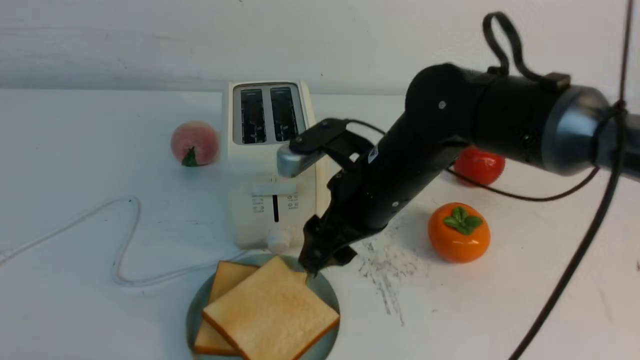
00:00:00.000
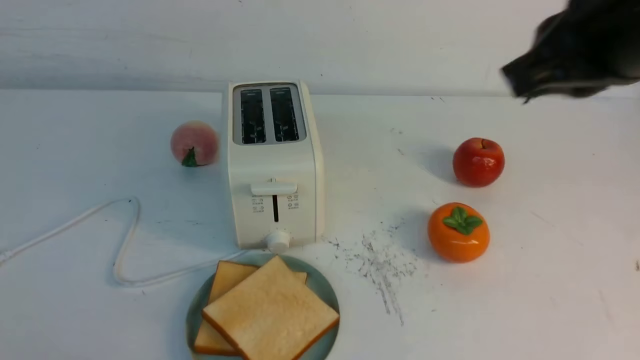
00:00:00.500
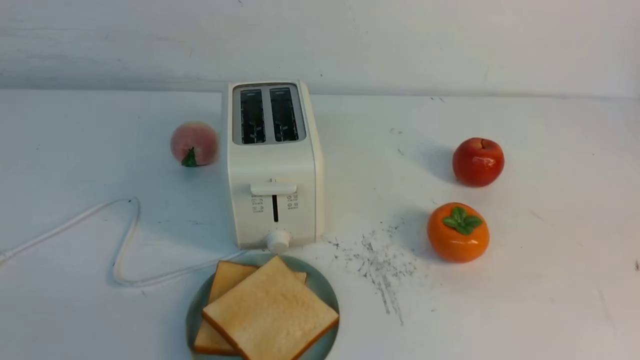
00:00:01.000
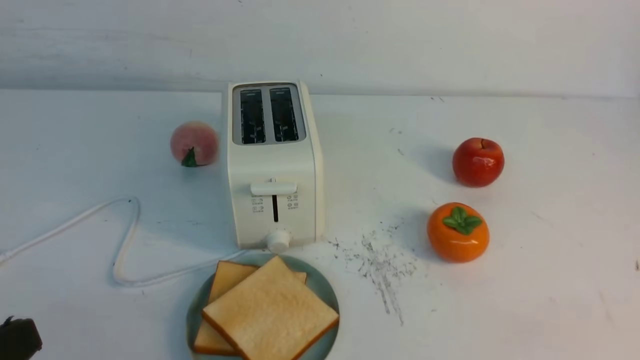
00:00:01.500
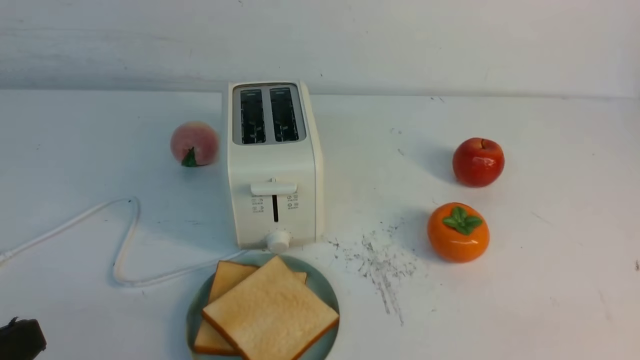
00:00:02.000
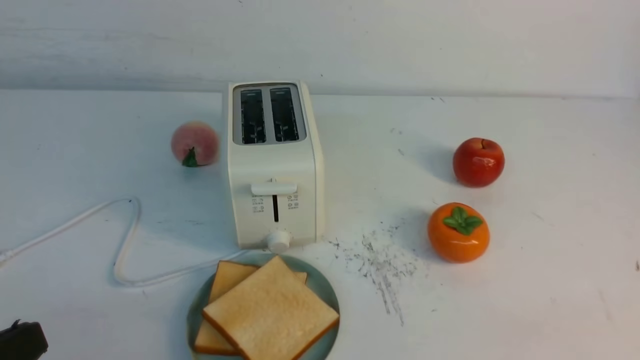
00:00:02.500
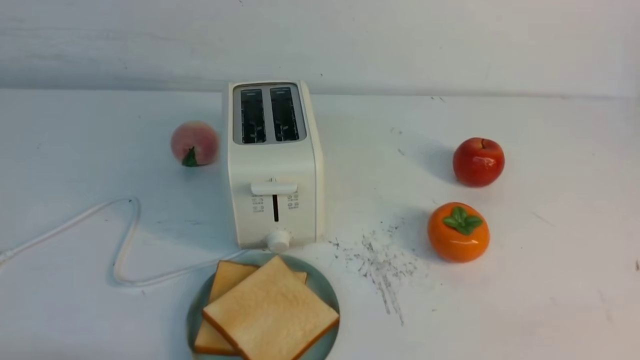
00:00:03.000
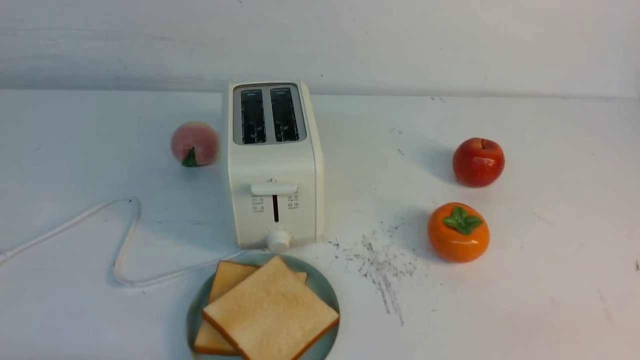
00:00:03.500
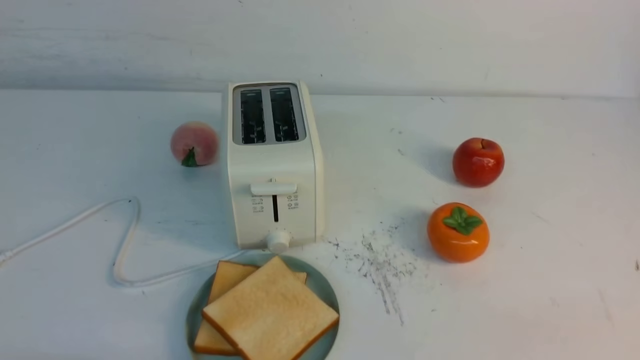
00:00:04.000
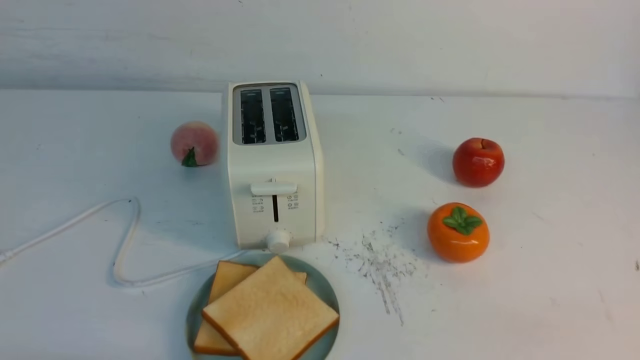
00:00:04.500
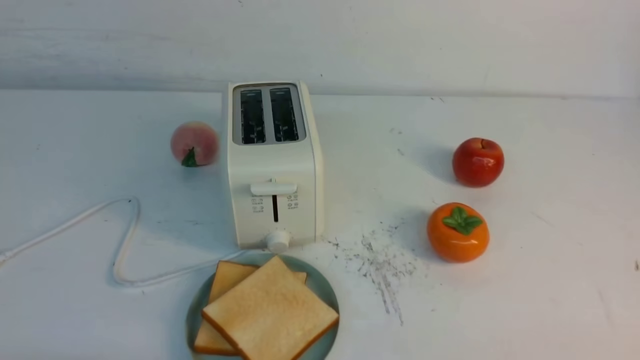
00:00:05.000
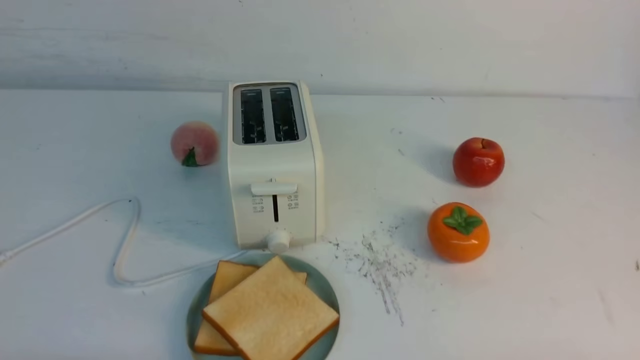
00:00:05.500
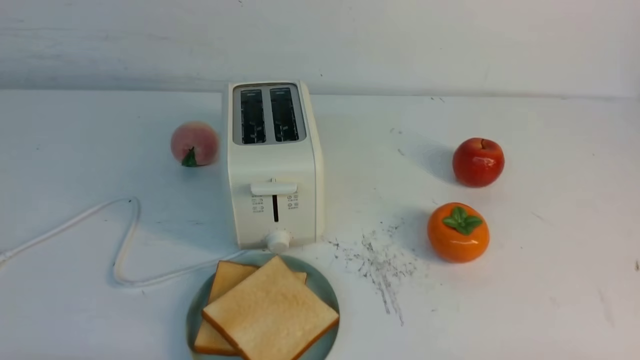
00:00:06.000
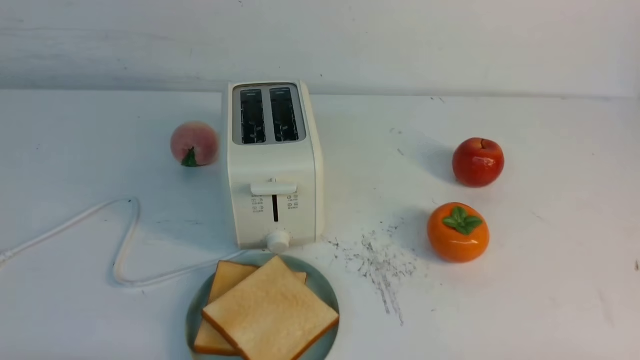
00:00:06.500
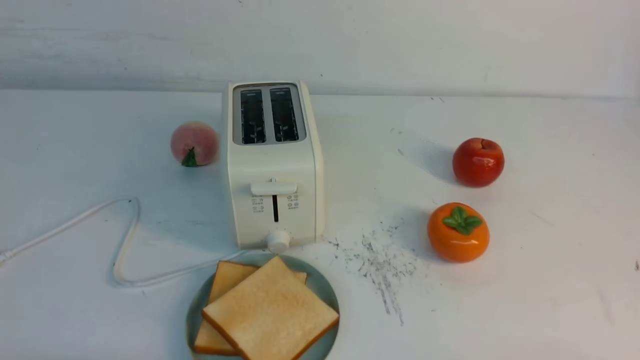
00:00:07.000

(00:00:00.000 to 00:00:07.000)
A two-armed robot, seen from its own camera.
Task of the whole recording: take toasted bread from bread machine on white table place on plate.
00:00:00.000 - 00:00:02.000: The right gripper shifts roughly 35 cm backward and to the right, and closes. Meanwhile the left gripper ends up roughly 5 cm from where it was.
00:00:02.000 - 00:00:03.500: The left gripper is displaced downward by roughly 10 cm.
